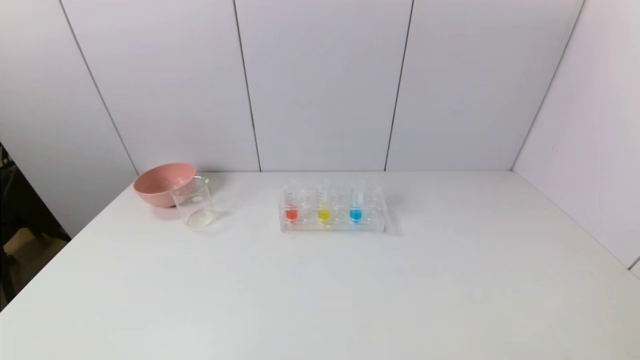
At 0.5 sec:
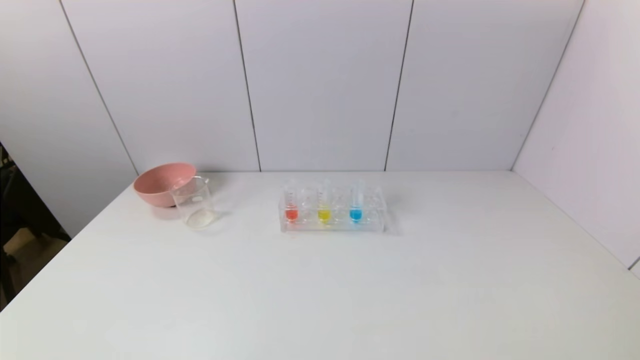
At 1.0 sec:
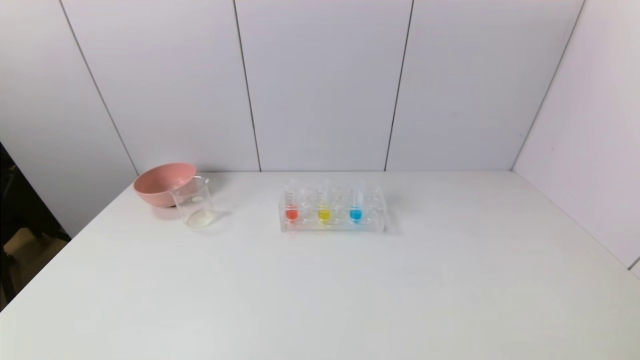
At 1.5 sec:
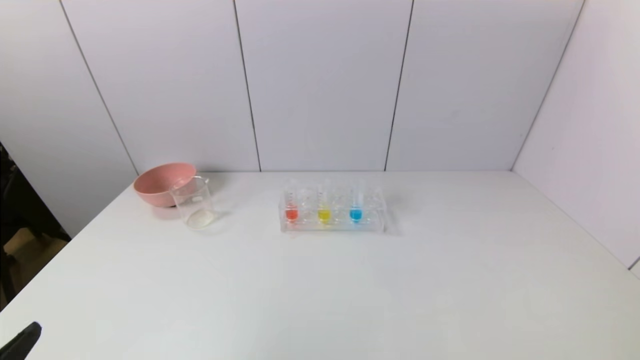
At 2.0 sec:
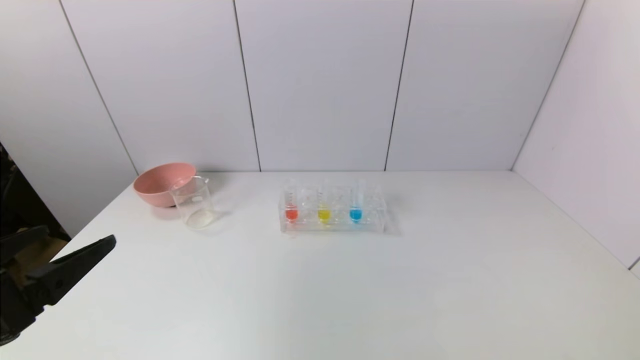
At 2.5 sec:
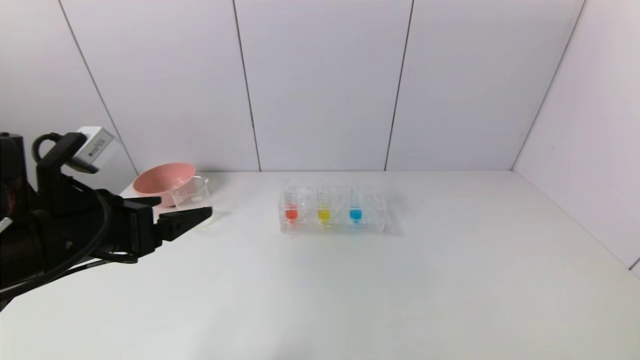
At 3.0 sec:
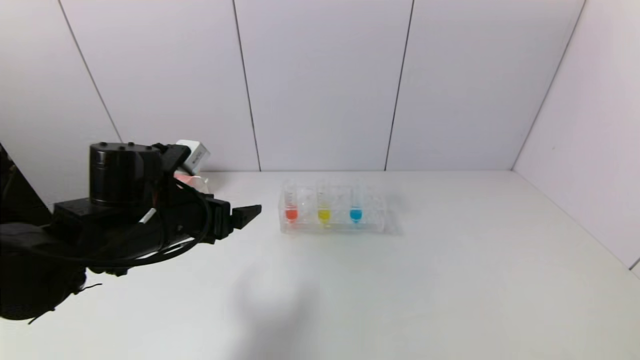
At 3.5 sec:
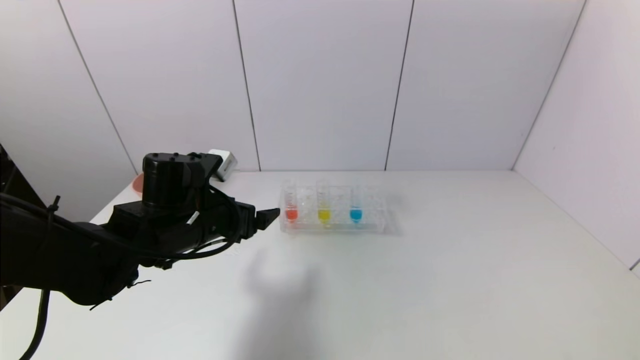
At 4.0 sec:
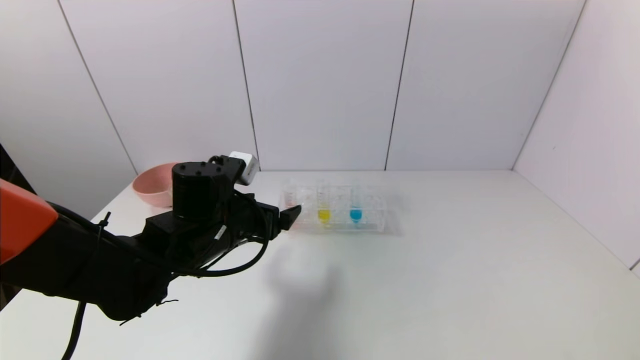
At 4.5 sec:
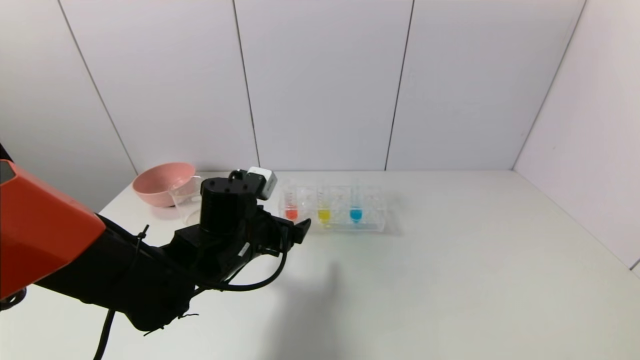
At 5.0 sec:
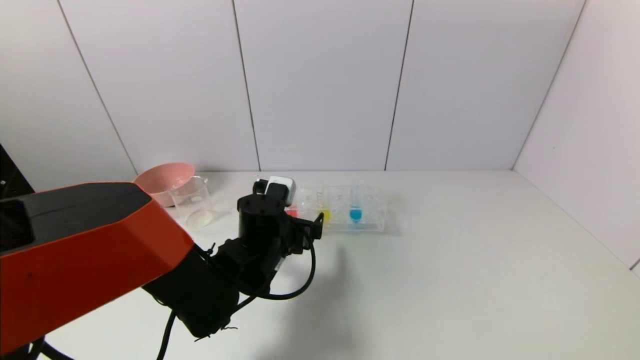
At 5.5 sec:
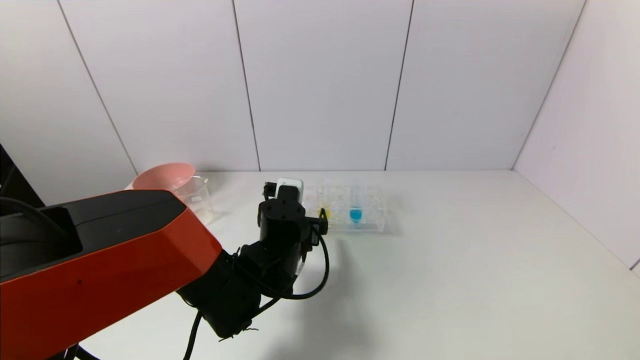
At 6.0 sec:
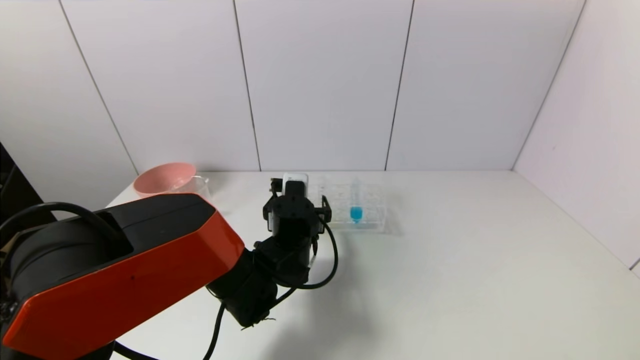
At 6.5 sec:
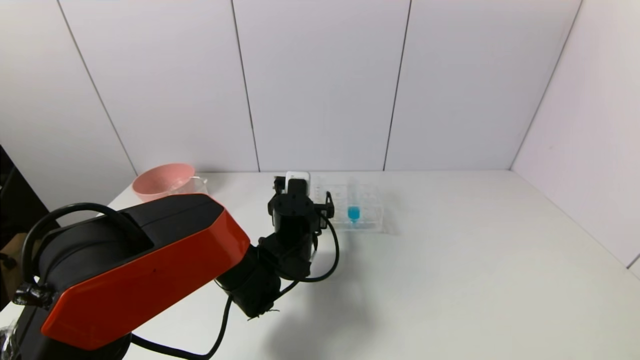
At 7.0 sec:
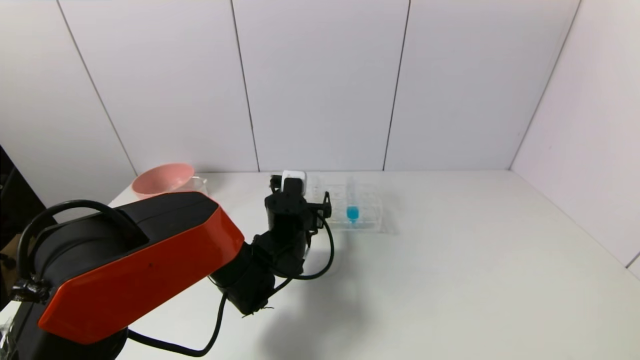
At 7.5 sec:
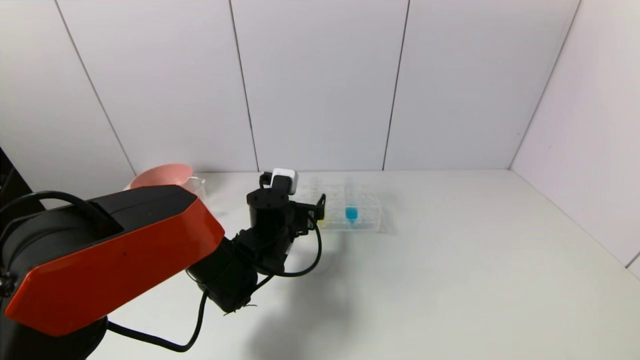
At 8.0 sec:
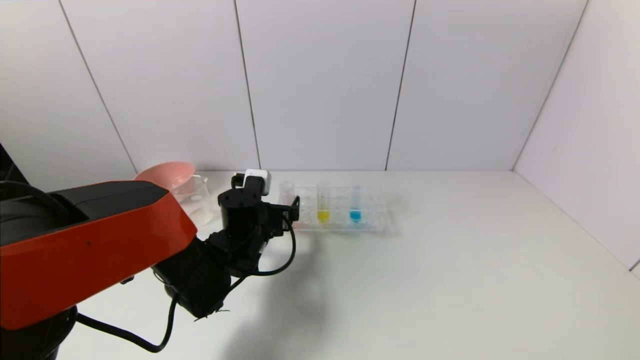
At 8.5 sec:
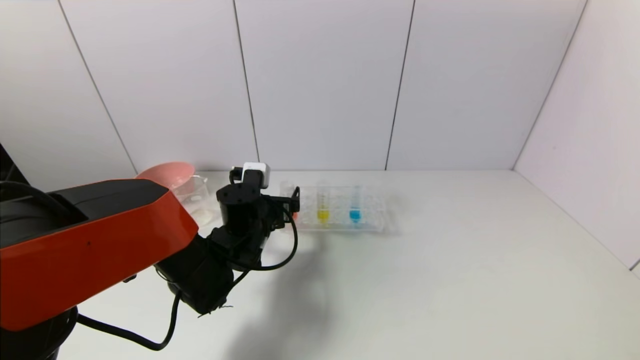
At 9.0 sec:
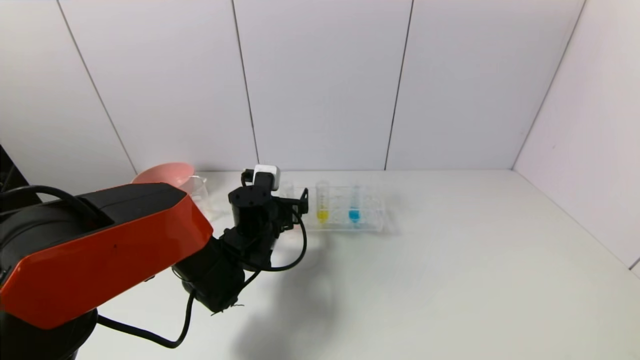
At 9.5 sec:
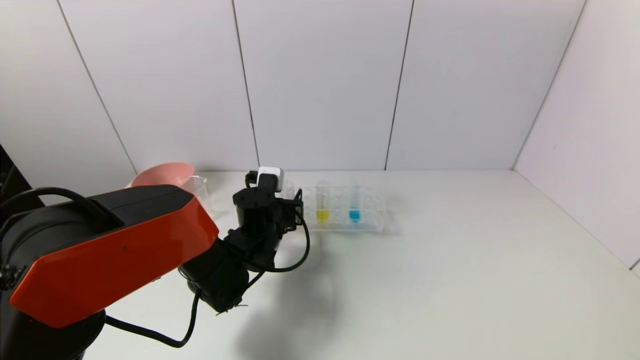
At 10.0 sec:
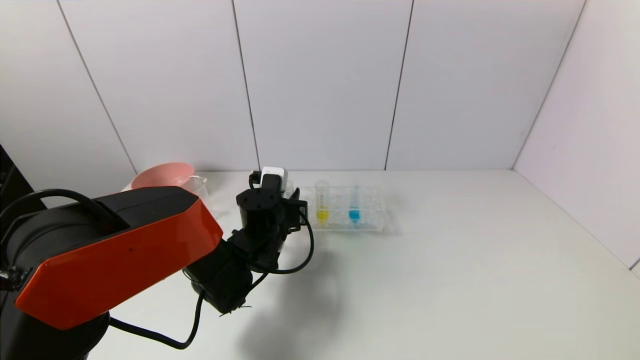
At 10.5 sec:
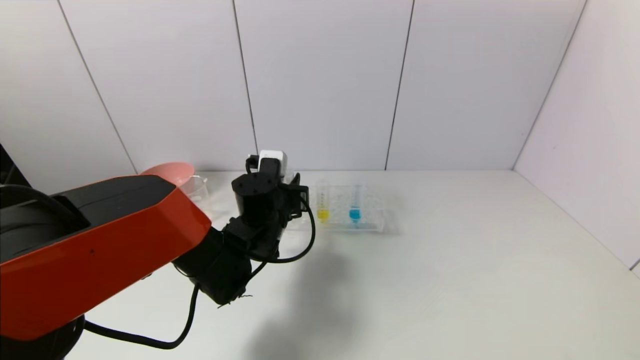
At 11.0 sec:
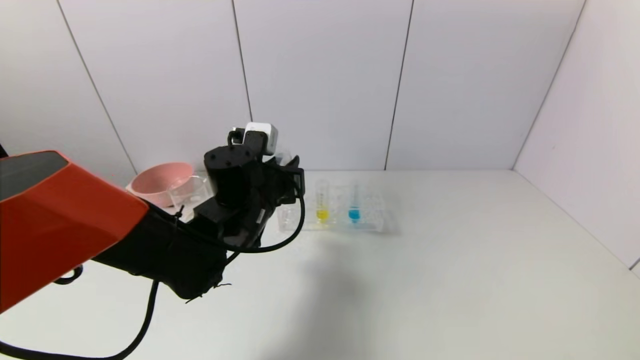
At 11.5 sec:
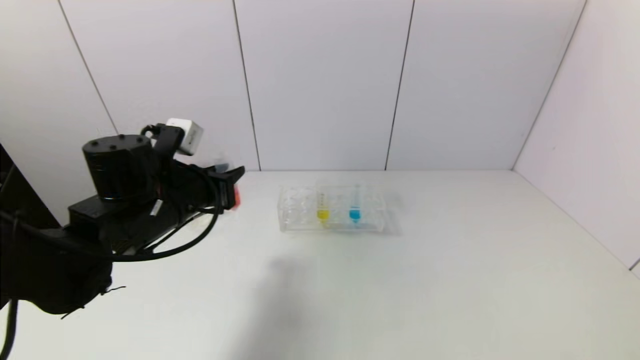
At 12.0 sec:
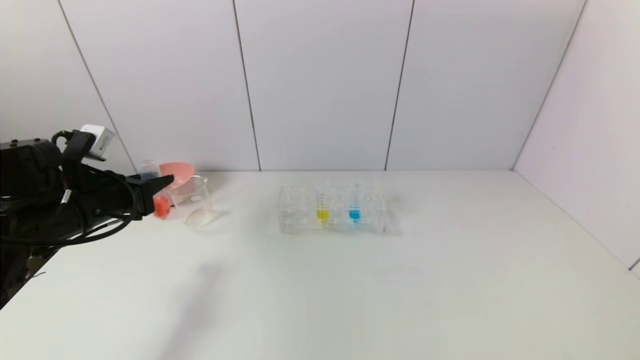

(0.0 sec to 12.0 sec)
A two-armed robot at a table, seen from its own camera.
Task of the whole recording: pick up the test tube with yellow pigment and the test tube with red pigment by grippers and pour them into the beaker.
Step, 0.0 sec - 9.5 sec: Grasp the red reagent with the left gripper.
0.0 sec - 2.0 sec: The left gripper travels upward and forward by some 20 cm.
2.0 sec - 4.0 sec: The left gripper moves forward and to the right, roughly 25 cm.
4.0 sec - 6.0 sec: The left gripper is displaced to the right and downward by approximately 10 cm.
6.0 sec - 8.0 sec: The left gripper is displaced to the left by roughly 5 cm.
8.0 sec - 10.0 sec: The left gripper closes.
10.0 sec - 12.0 sec: The left gripper shifts approximately 25 cm to the left and upward.

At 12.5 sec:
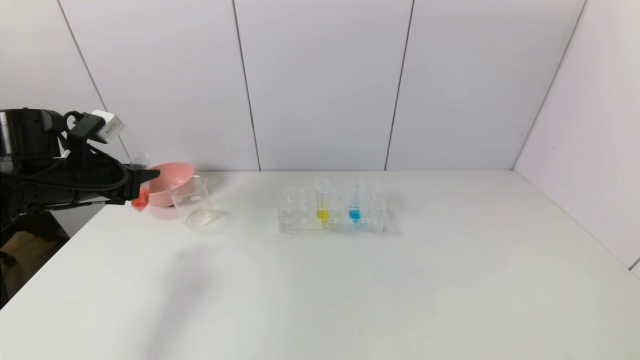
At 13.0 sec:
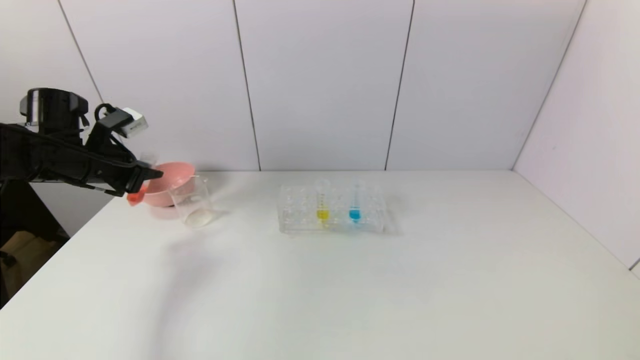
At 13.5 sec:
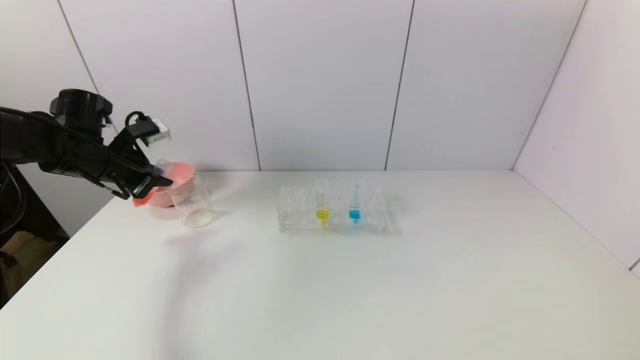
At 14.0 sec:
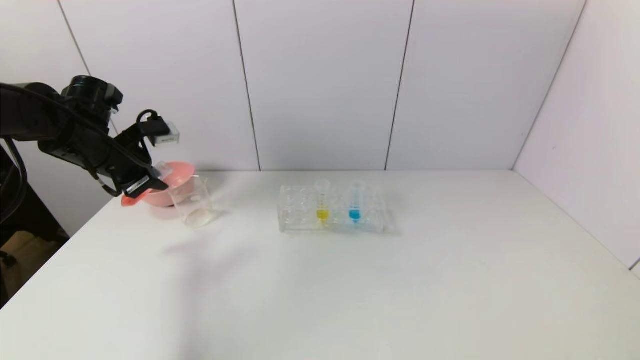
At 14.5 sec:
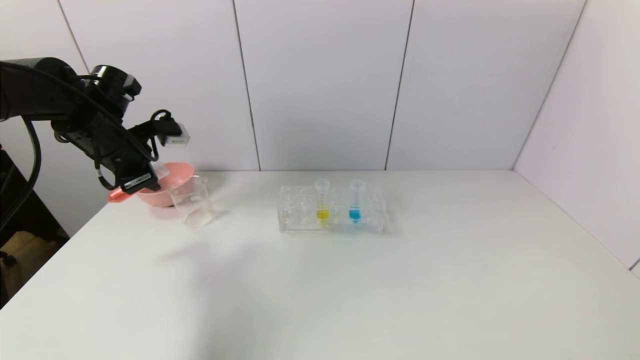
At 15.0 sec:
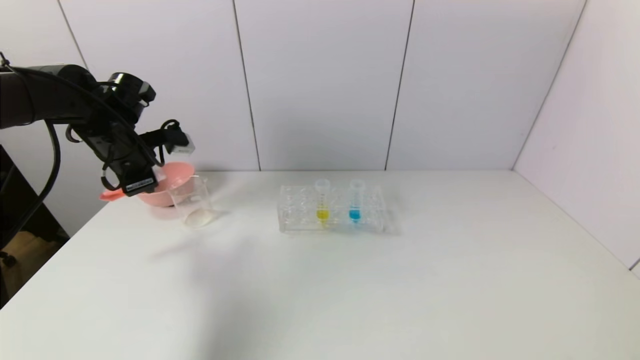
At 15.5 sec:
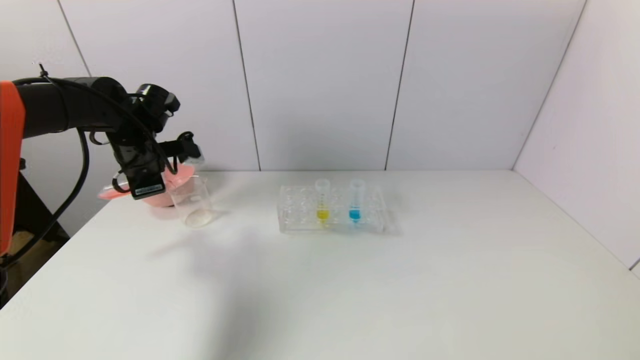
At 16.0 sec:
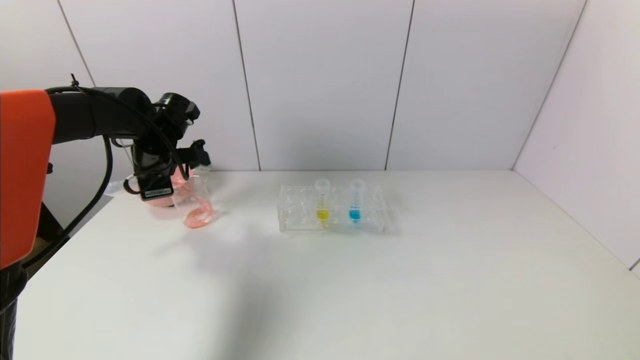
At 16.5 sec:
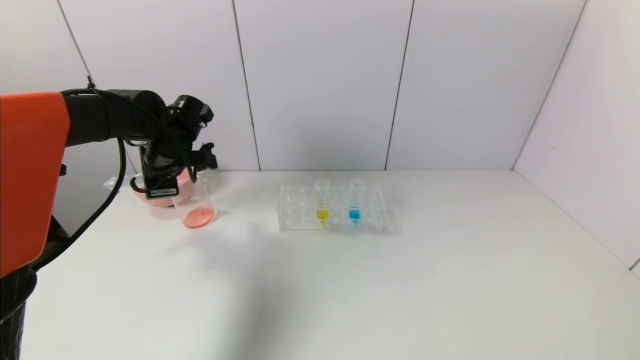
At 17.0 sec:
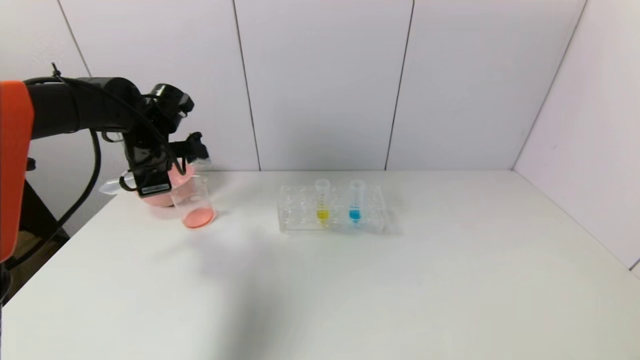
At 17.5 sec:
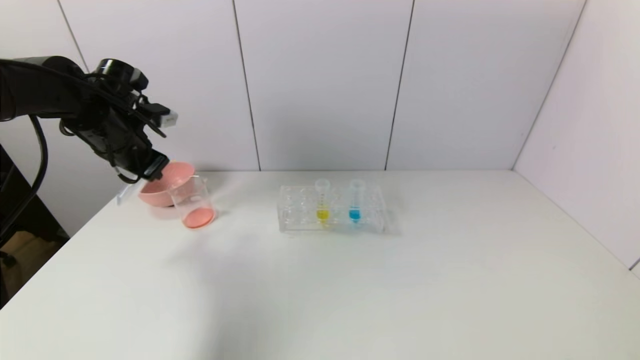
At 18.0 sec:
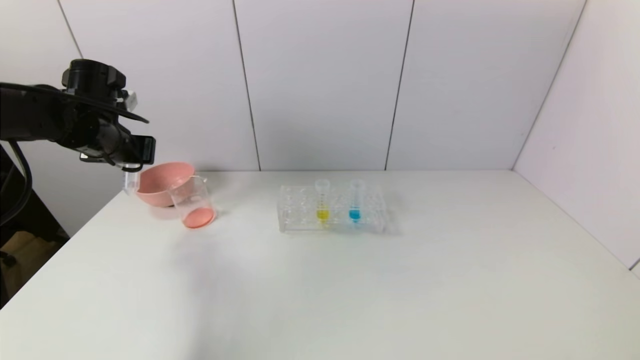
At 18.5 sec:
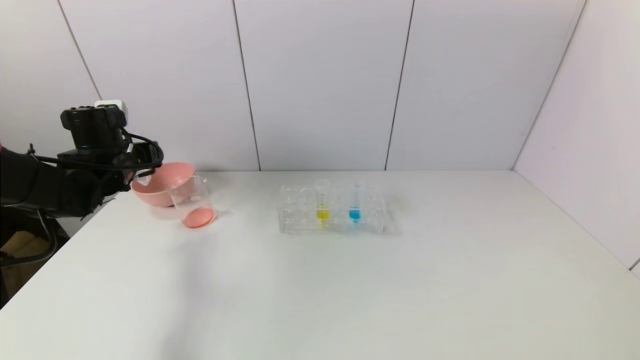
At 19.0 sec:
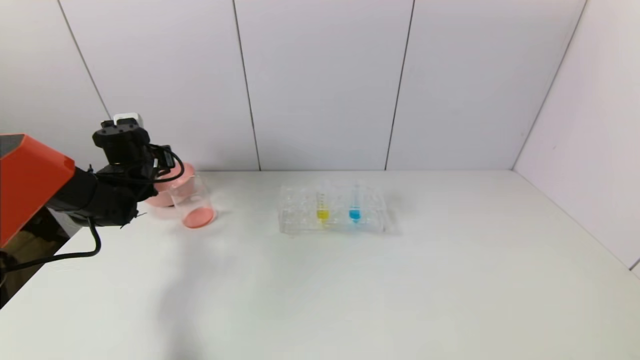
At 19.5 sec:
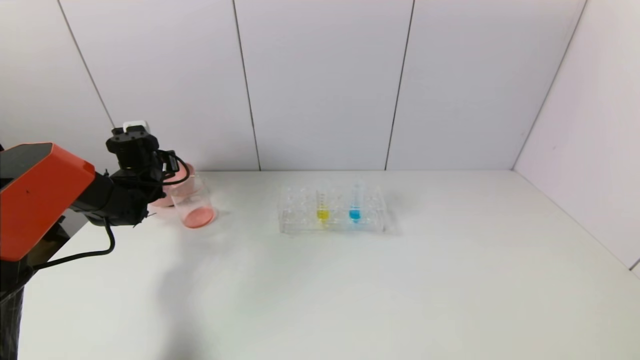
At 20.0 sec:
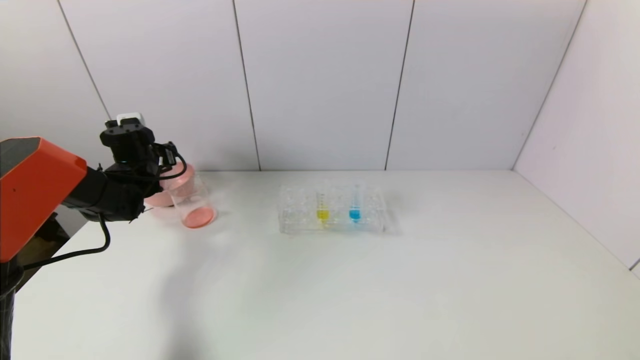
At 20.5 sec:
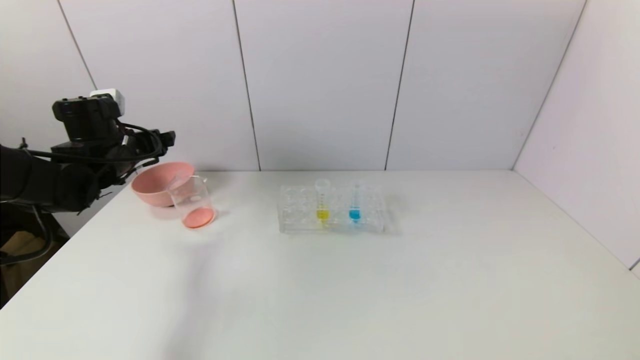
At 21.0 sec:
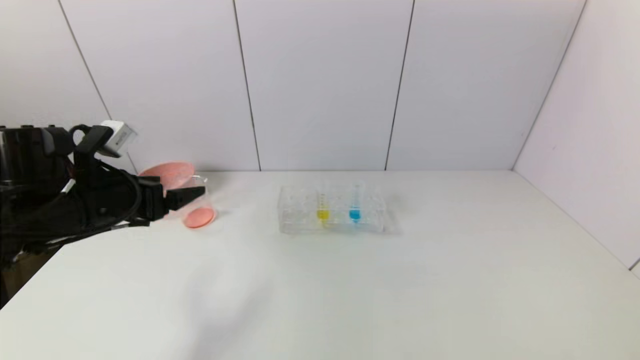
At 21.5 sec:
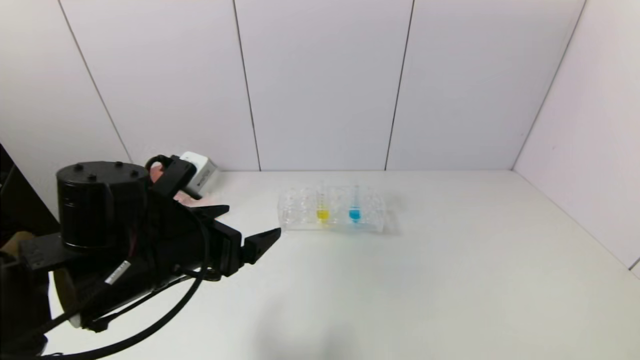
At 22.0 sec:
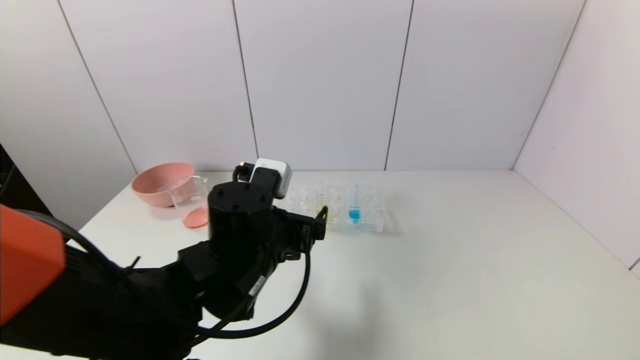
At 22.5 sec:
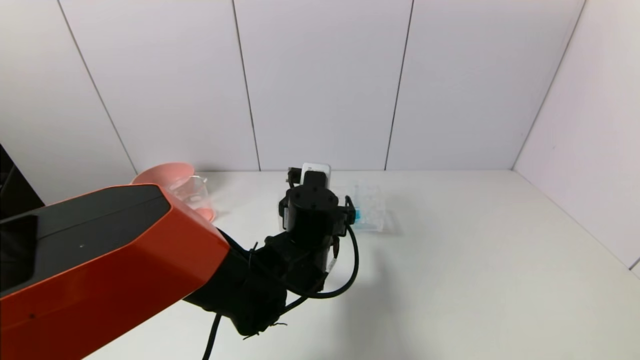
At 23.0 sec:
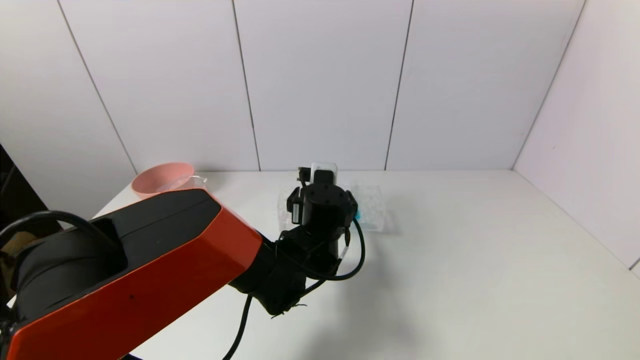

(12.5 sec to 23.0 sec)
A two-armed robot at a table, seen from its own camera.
Task of the whole recording: pick up the test tube with yellow pigment and the test tube with red pigment by grippers and pour them into the beaker.
Step, 12.5 sec - 16.5 sec: Pour the red reagent into the graduated cylinder with the left gripper.
Step, 17.0 sec - 20.0 sec: Place the test tube into the pink bowl with the left gripper.
12.5 sec - 14.5 sec: The left gripper heads forward, covering about 5 cm.
14.5 sec - 16.5 sec: The left gripper is displaced to the right by some 5 cm.
16.5 sec - 19.0 sec: The left gripper goes about 10 cm to the left and downward.
19.0 sec - 21.0 sec: The left gripper shifts approximately 20 cm backward, and opens up.
21.0 sec - 23.0 sec: The left gripper heads to the right, covering approximately 30 cm.
